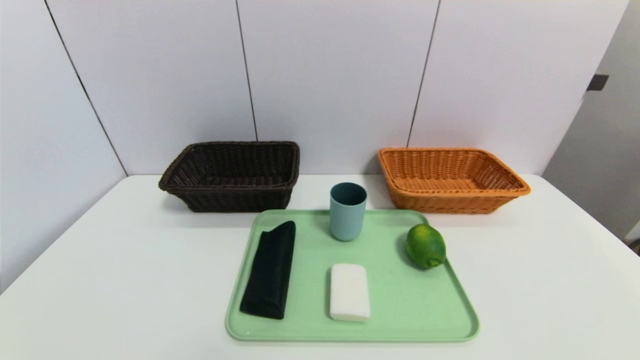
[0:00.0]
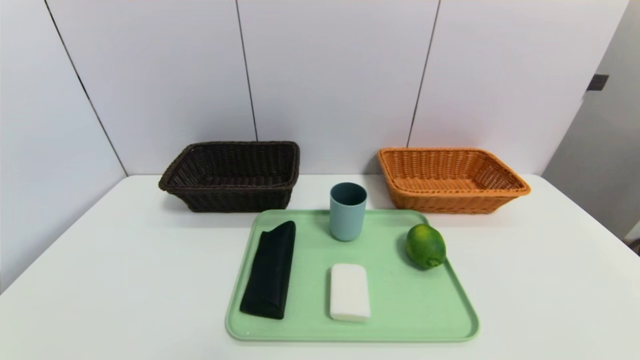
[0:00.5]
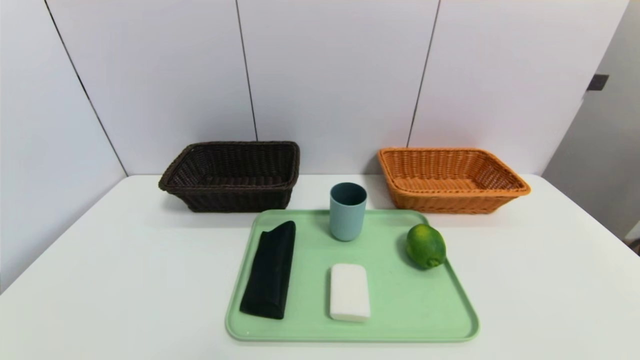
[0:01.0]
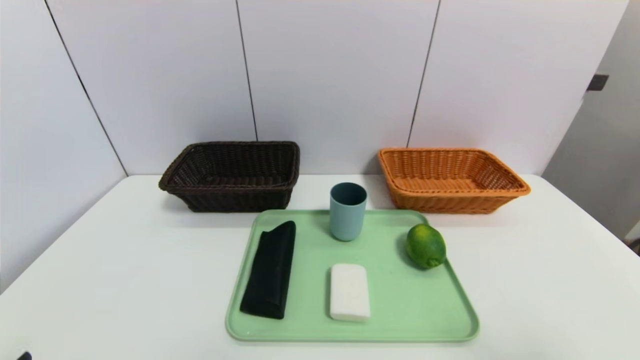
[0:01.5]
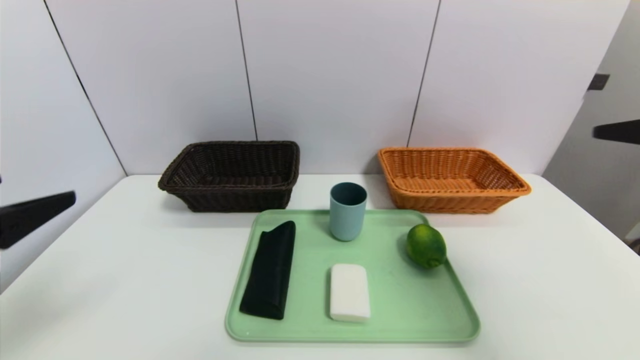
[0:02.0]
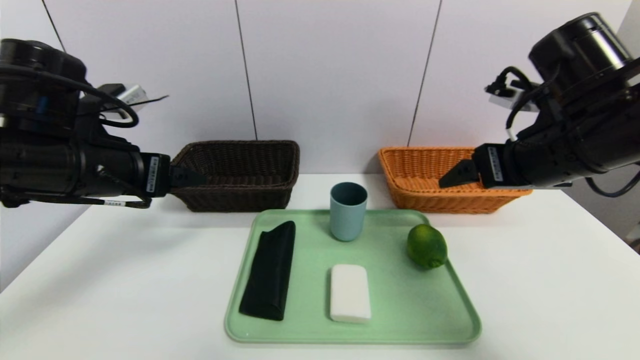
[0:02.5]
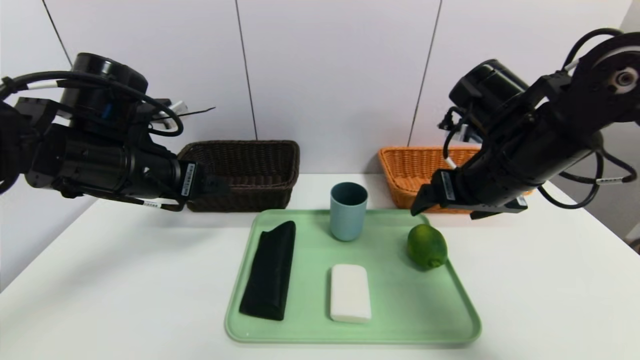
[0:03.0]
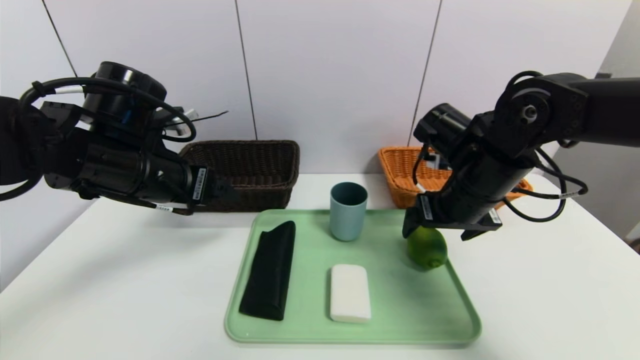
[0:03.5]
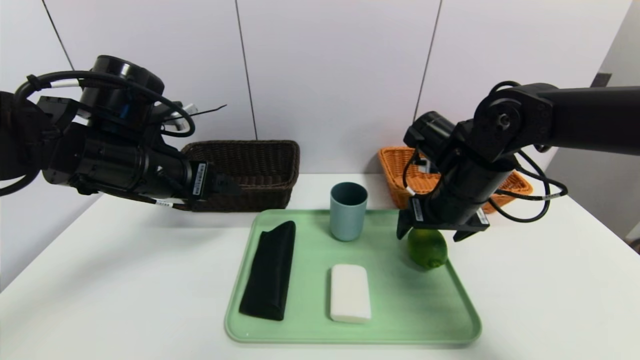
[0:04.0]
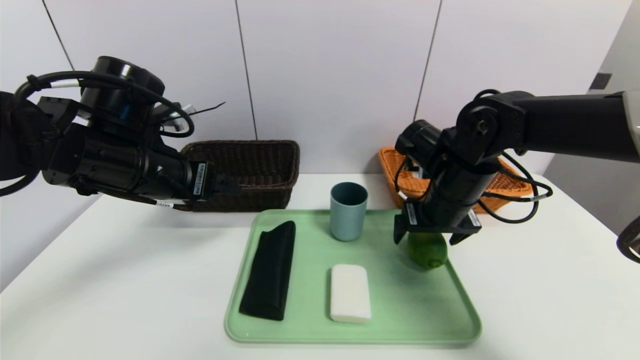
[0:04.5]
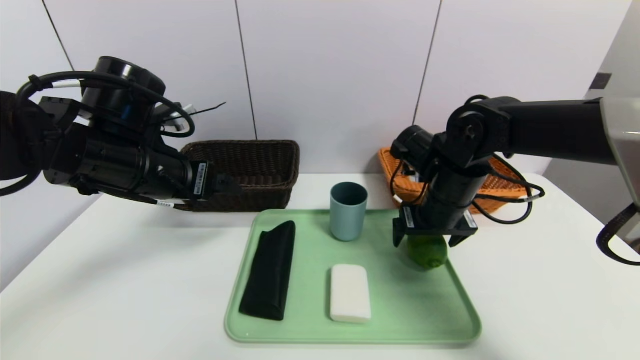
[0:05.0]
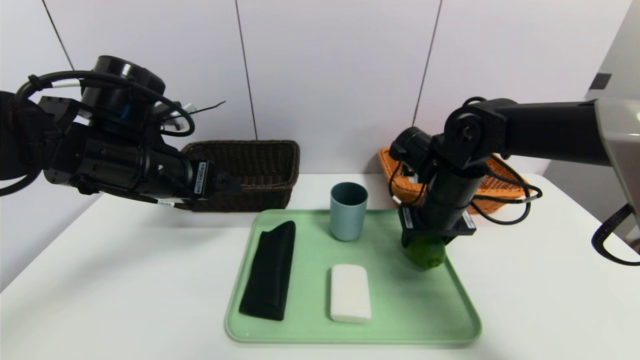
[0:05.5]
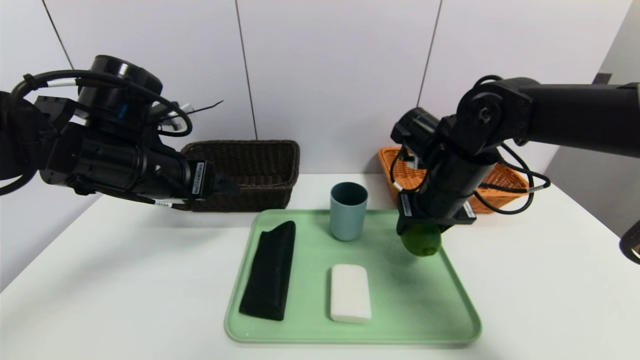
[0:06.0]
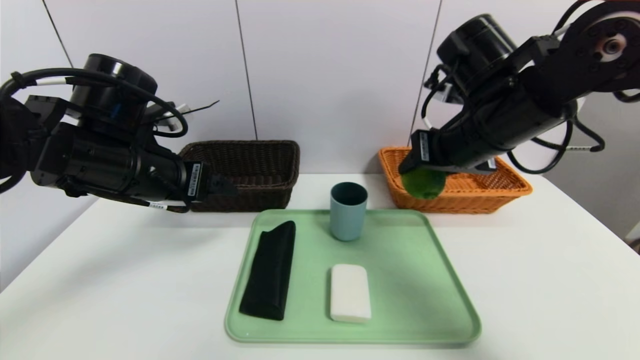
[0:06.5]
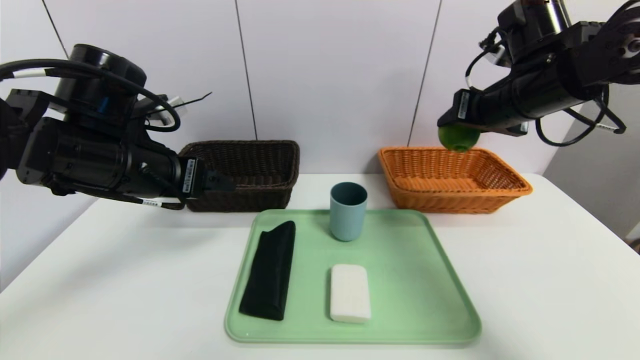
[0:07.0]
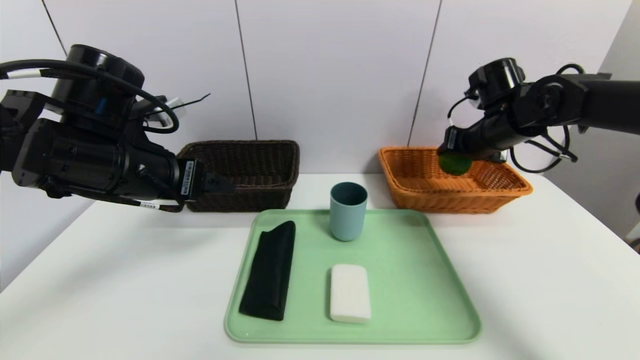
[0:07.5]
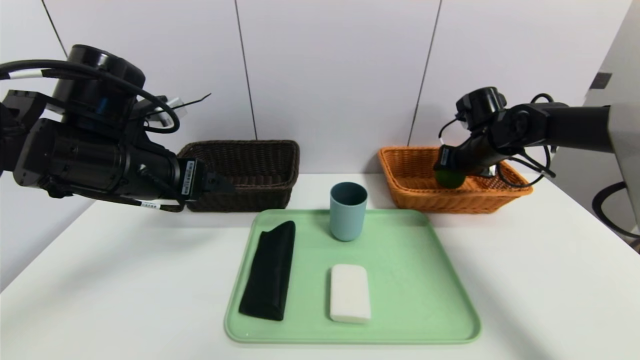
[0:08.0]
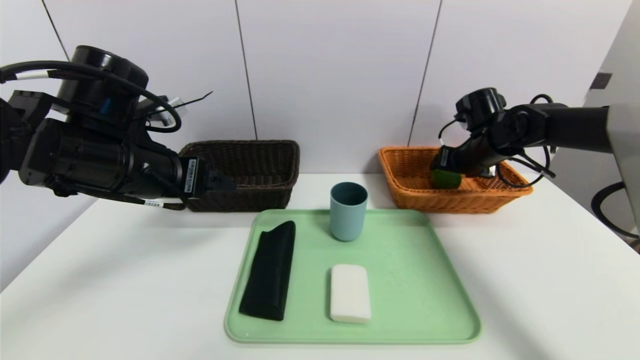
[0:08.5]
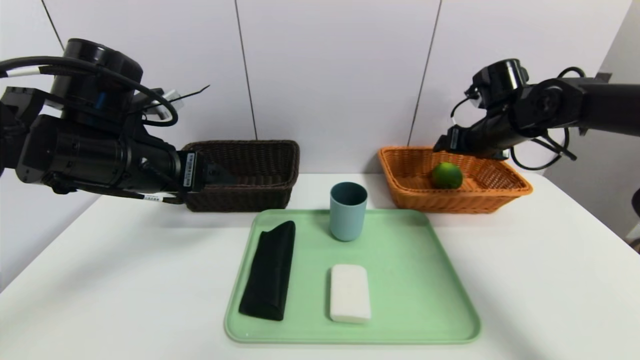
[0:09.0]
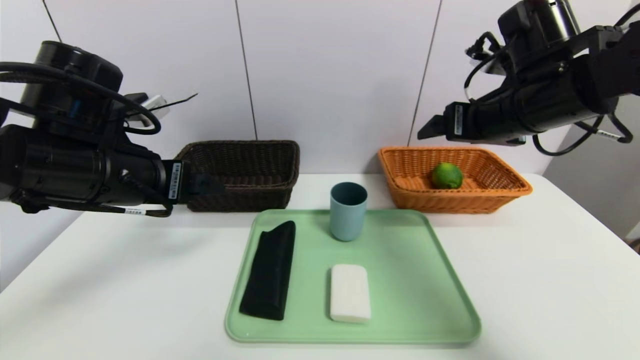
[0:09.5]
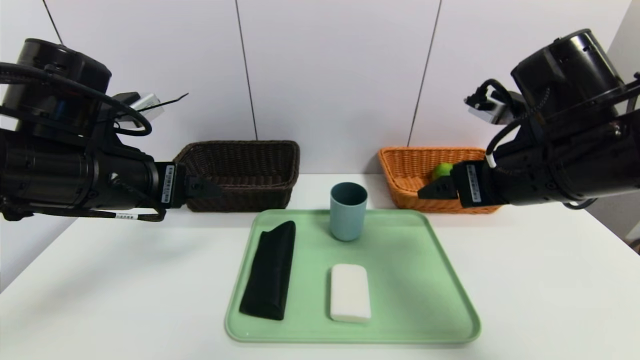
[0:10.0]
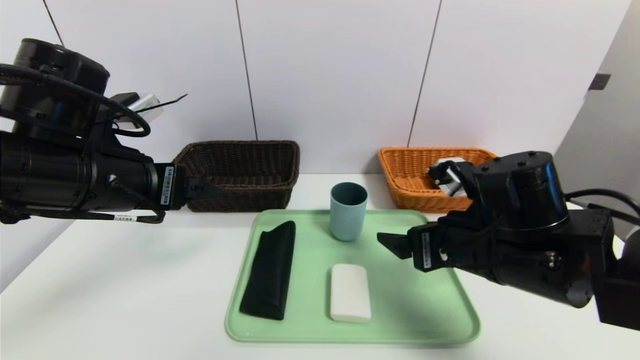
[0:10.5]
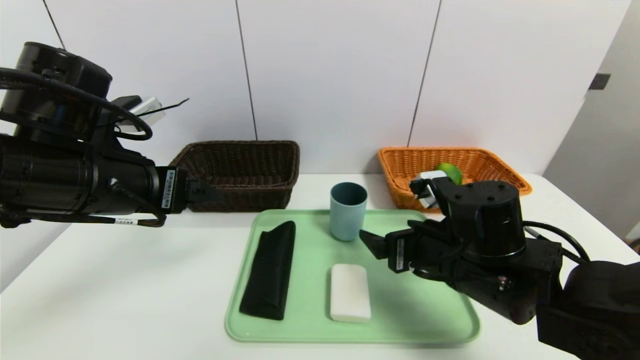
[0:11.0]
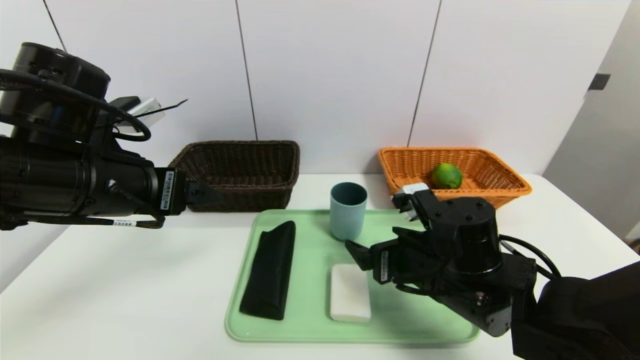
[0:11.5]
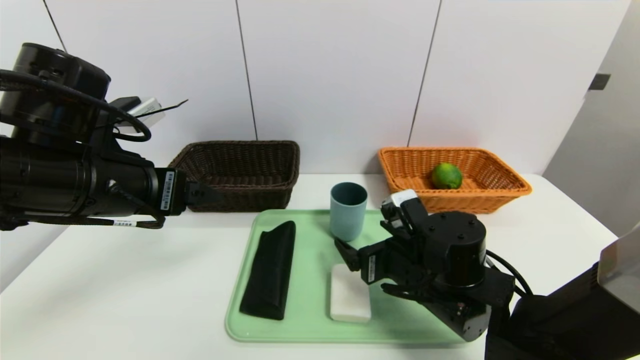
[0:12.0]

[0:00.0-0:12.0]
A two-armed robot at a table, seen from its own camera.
Task of the whole recording: place the food in the right basket with the right gripper, and place the non food items in the left basket with the left gripper.
Step, 0:00.0 to 0:08.5: Grasp the green lemon and put it in the right basket.
0:00.0 to 0:02.0: The grippers both shift upward and forward by some 30 cm.
0:02.0 to 0:04.0: The right gripper goes approximately 25 cm forward, downward and to the left; the left gripper moves forward and to the right, about 20 cm.
0:04.0 to 0:06.0: The right gripper closes up.
0:06.0 to 0:08.0: The right gripper goes about 15 cm forward and to the right.
0:08.0 to 0:10.0: The right gripper moves backward, about 20 cm, and opens up.
0:10.0 to 0:12.0: The right gripper goes roughly 20 cm downward and to the left.

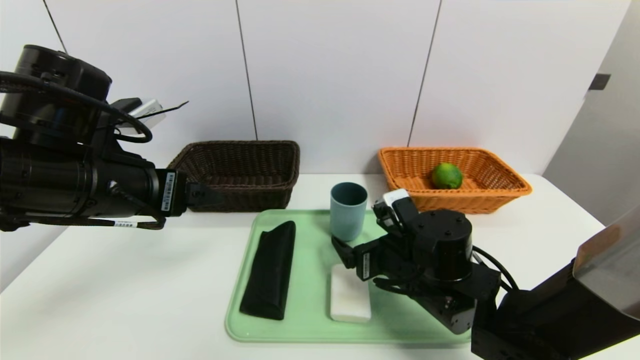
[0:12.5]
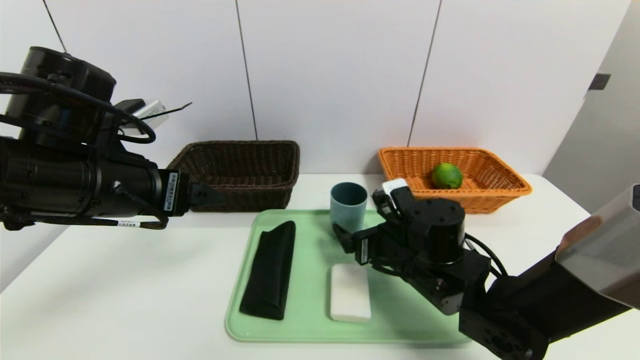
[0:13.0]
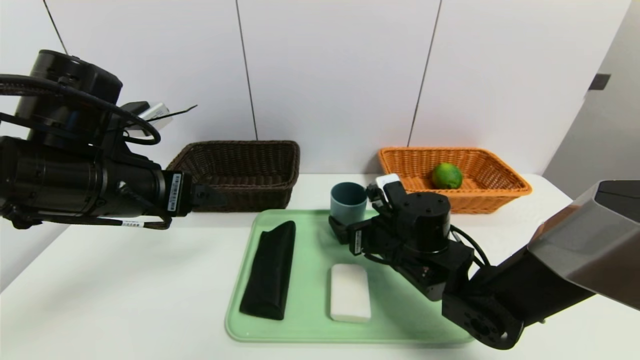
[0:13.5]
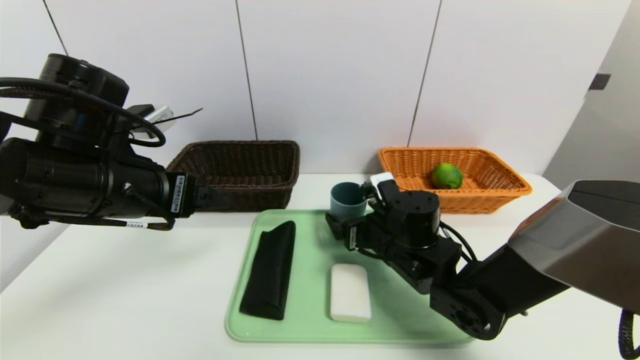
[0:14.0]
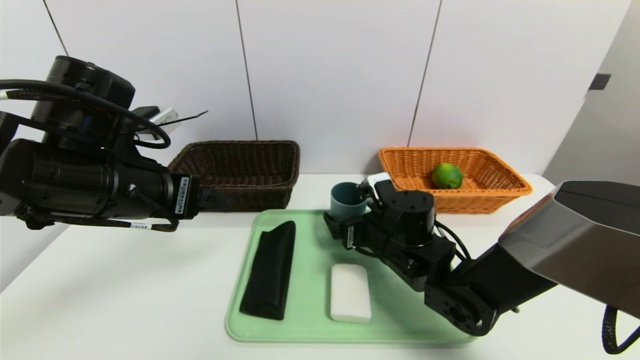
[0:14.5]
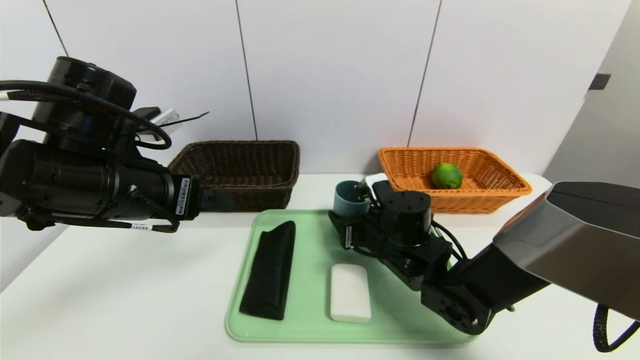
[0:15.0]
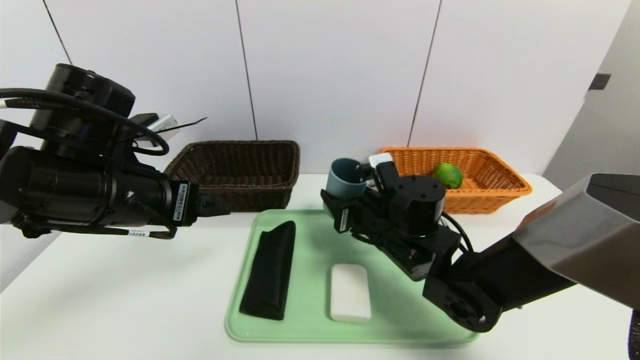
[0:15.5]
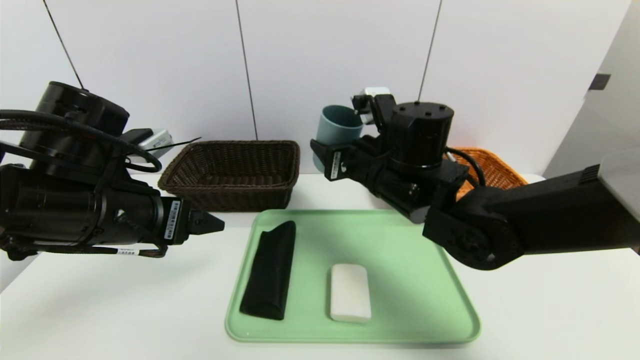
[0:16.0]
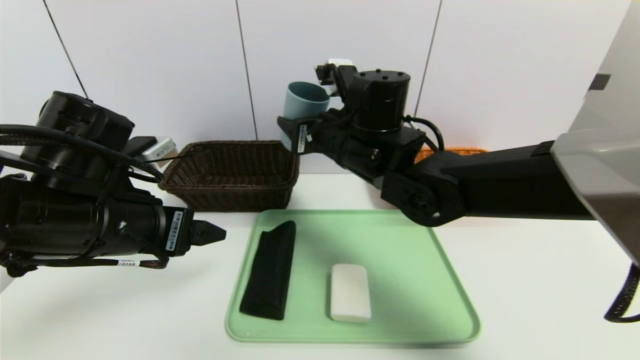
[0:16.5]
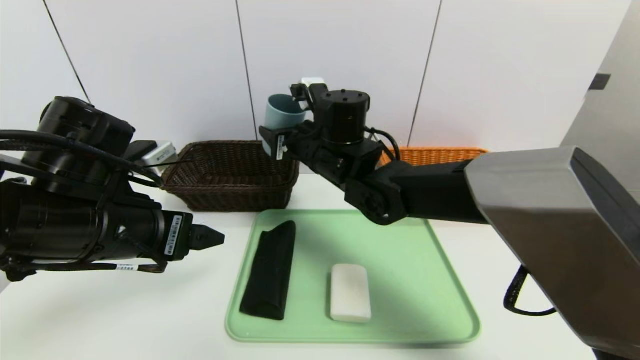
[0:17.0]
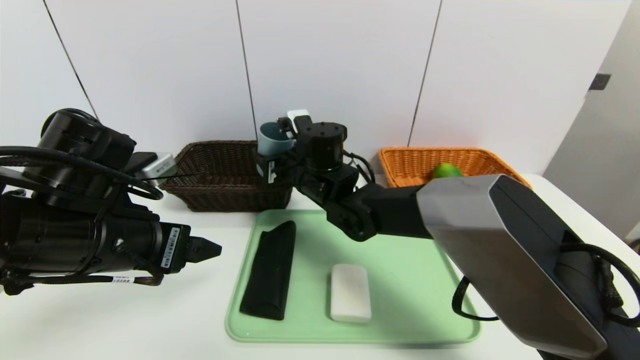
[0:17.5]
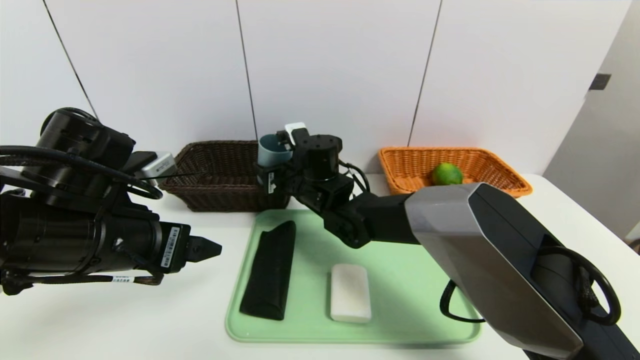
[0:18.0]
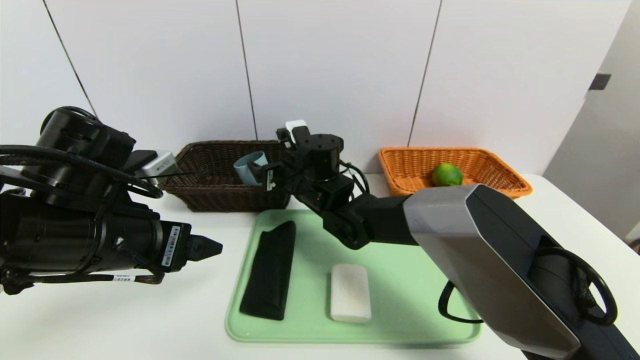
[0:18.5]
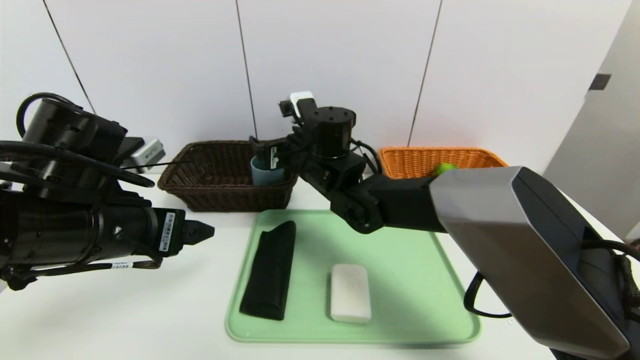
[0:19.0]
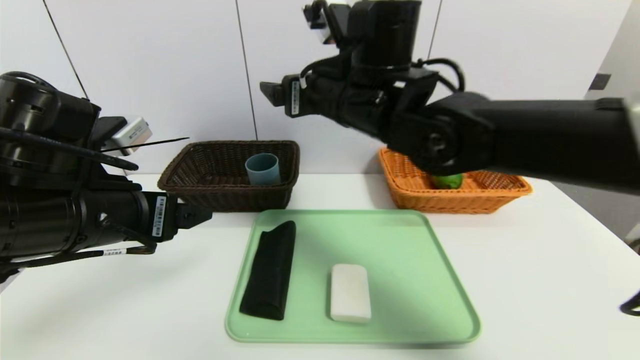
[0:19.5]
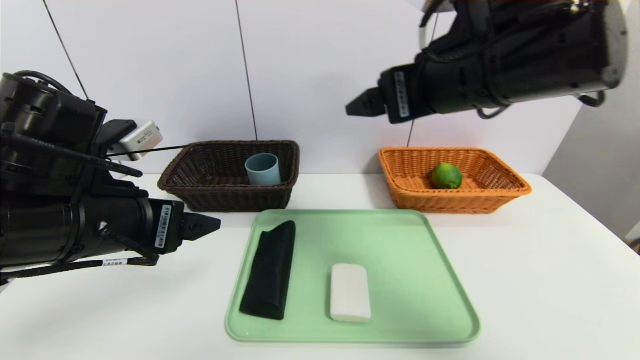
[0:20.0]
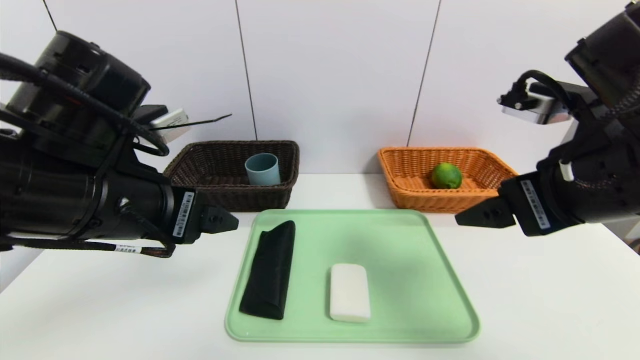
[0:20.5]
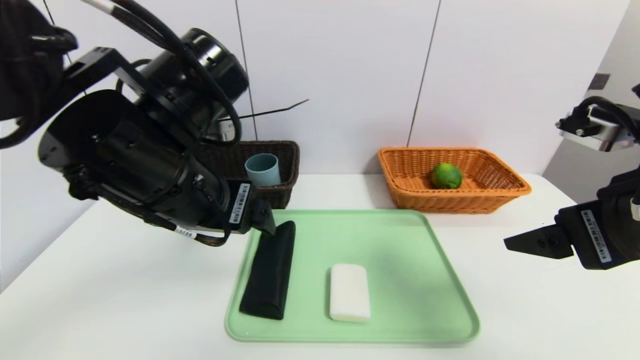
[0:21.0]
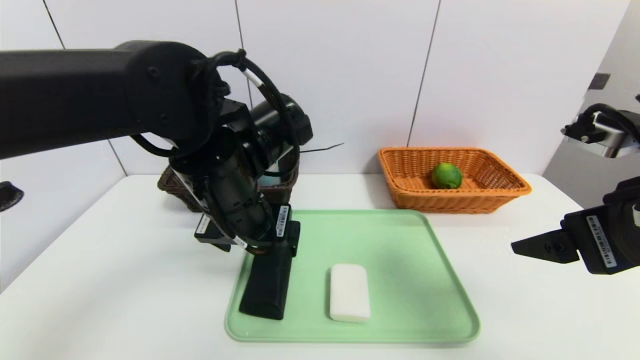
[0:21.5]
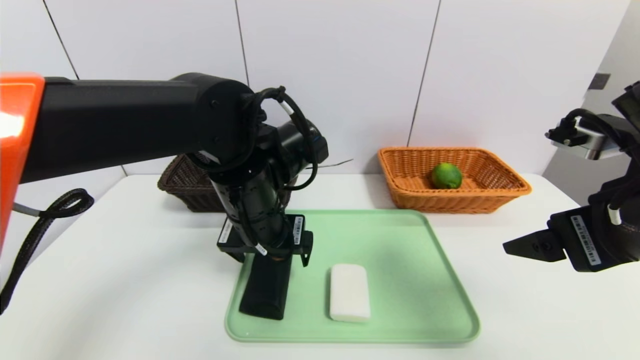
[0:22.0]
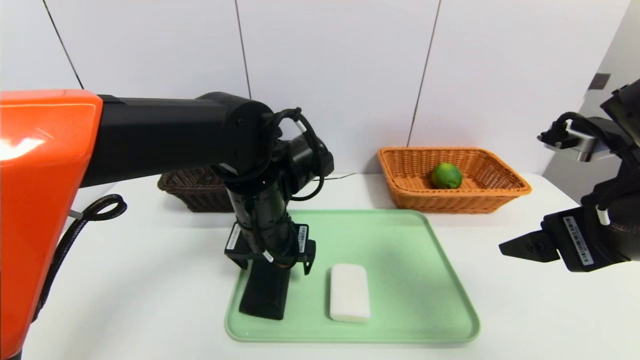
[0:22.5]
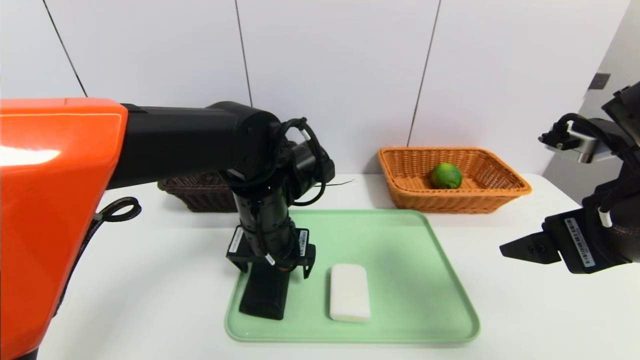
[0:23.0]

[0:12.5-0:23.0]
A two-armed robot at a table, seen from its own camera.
Task of the whole recording: place the food in the right basket with the right gripper, and place the non food items in the left basket with the left gripper.
0:12.5 to 0:14.5: The right gripper goes approximately 5 cm forward.
0:14.5 to 0:16.5: The right gripper shifts about 15 cm upward and to the left, and closes.
0:16.5 to 0:19.0: The right gripper opens.
0:19.0 to 0:21.0: The left gripper shifts some 10 cm to the right and upward. The right gripper shifts some 35 cm to the right and backward.
0:21.0 to 0:23.0: The left gripper shifts roughly 15 cm downward, forward and to the right.
